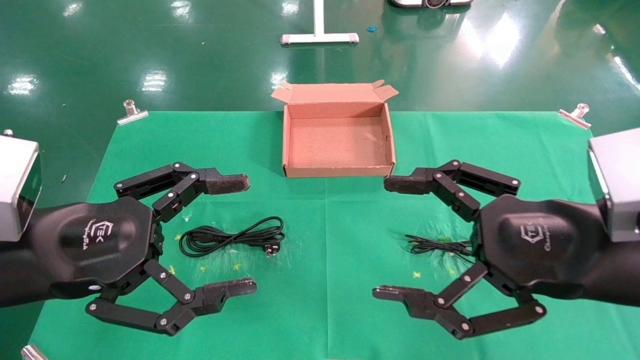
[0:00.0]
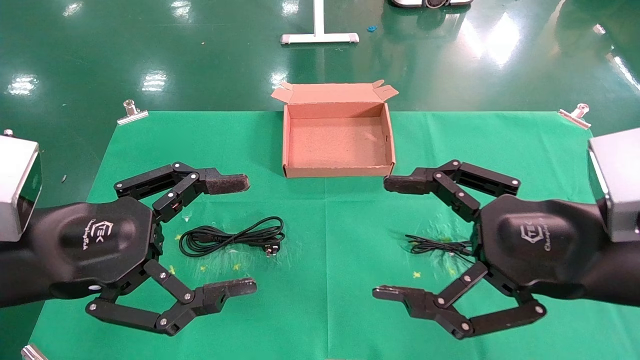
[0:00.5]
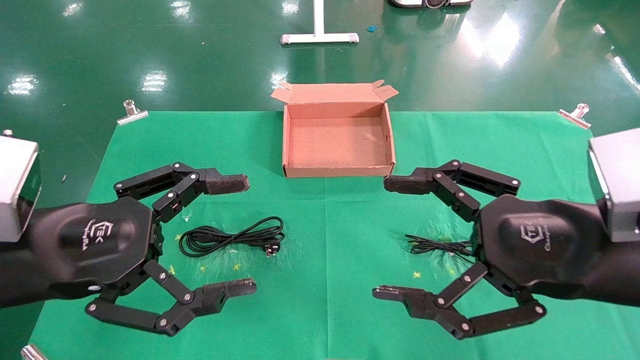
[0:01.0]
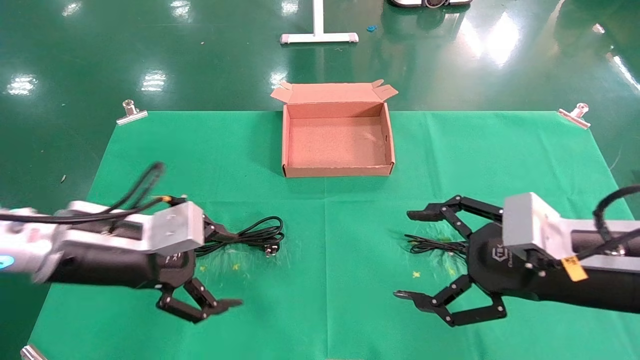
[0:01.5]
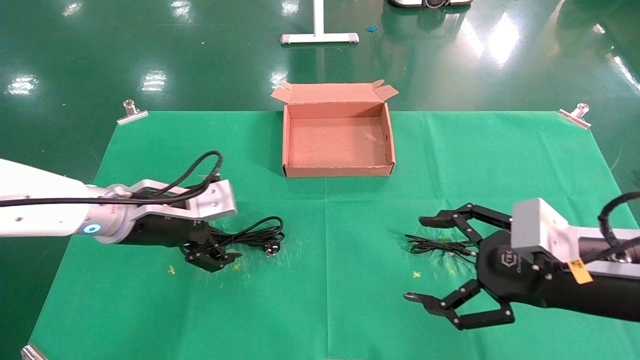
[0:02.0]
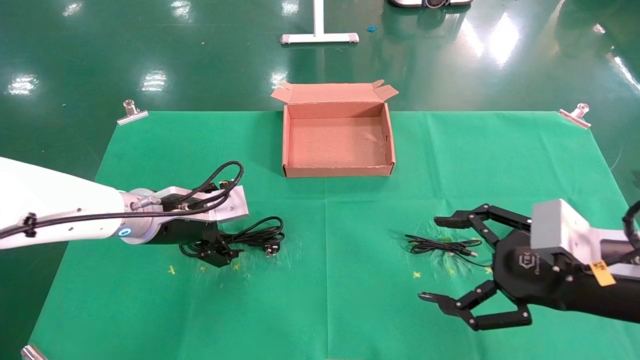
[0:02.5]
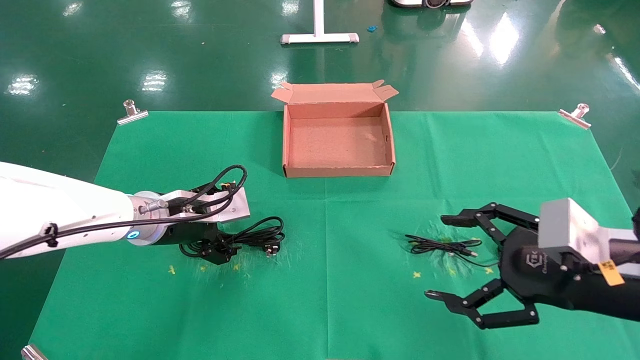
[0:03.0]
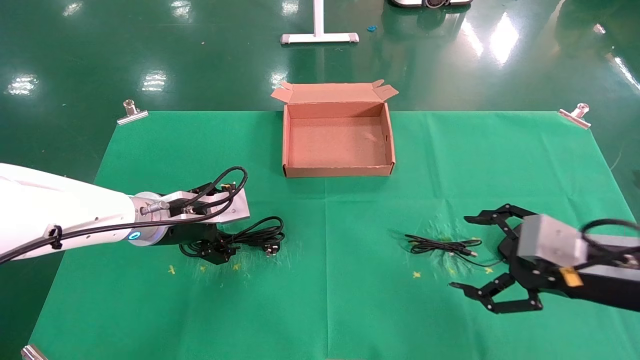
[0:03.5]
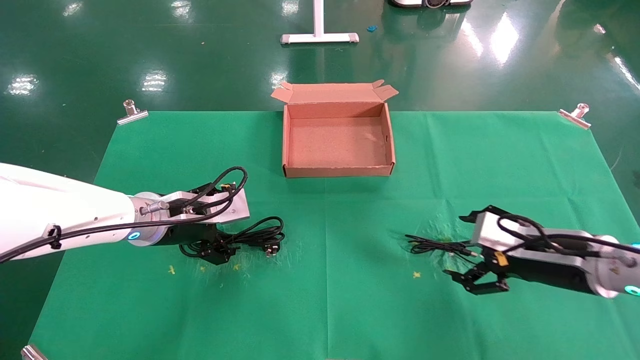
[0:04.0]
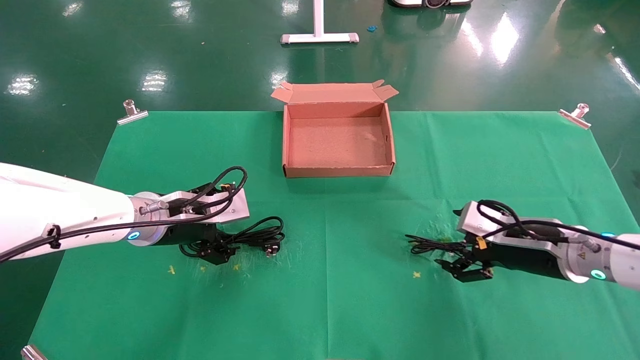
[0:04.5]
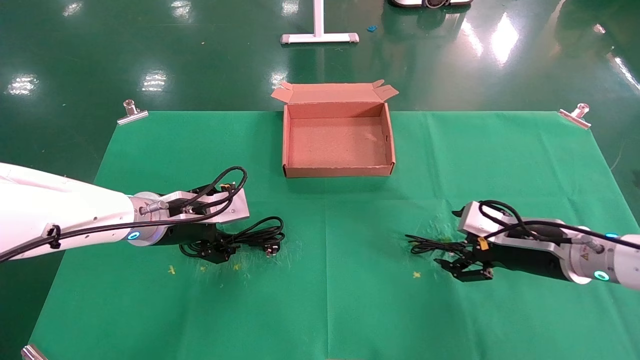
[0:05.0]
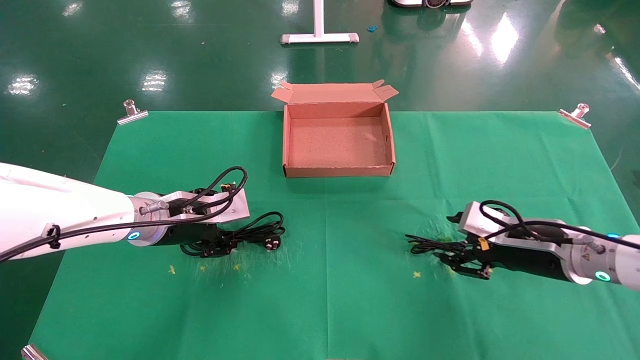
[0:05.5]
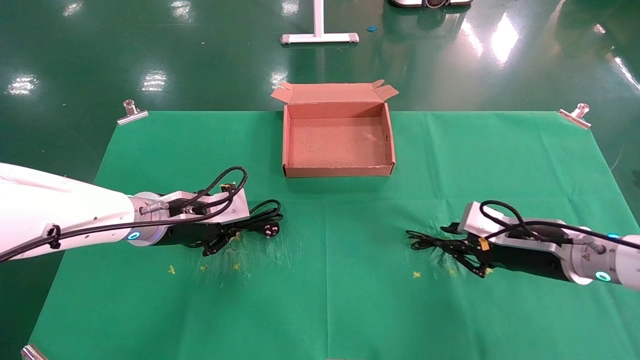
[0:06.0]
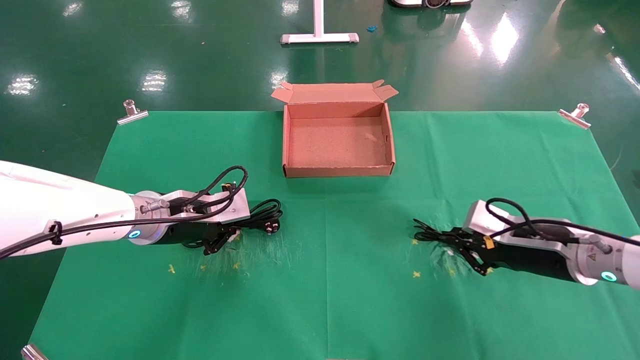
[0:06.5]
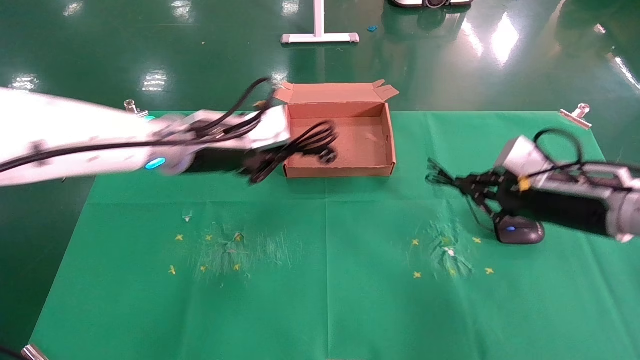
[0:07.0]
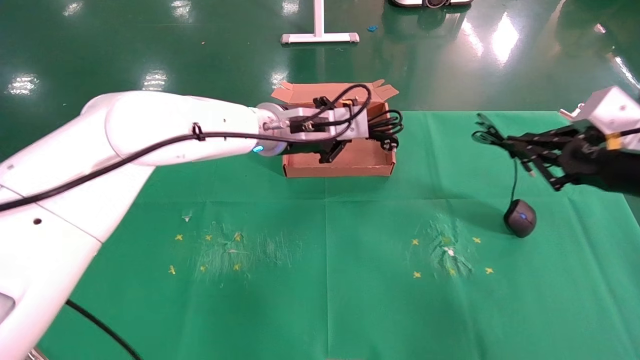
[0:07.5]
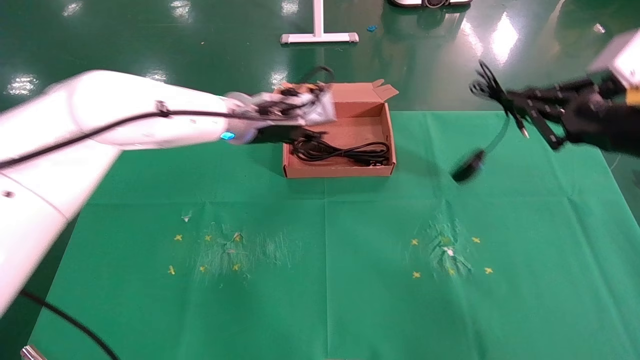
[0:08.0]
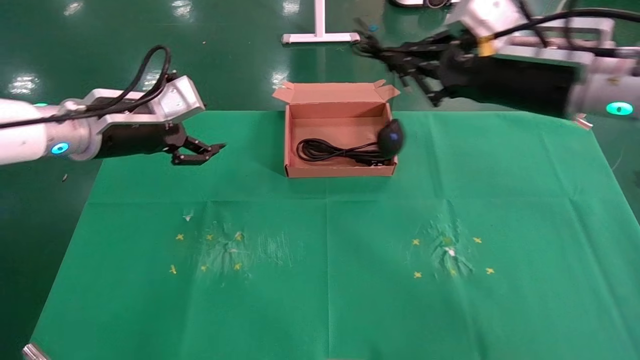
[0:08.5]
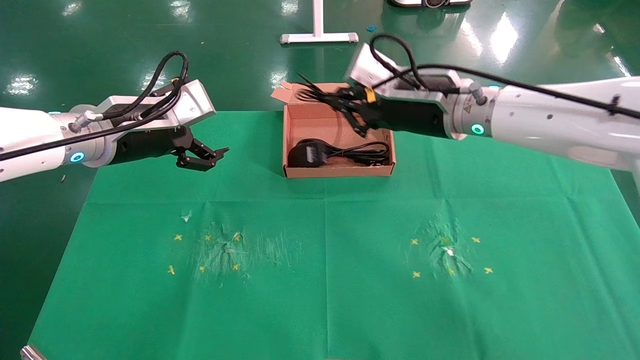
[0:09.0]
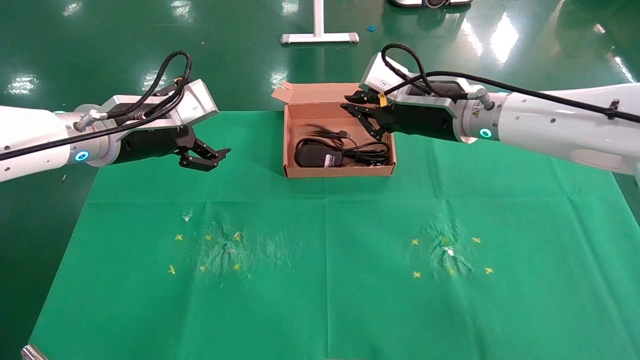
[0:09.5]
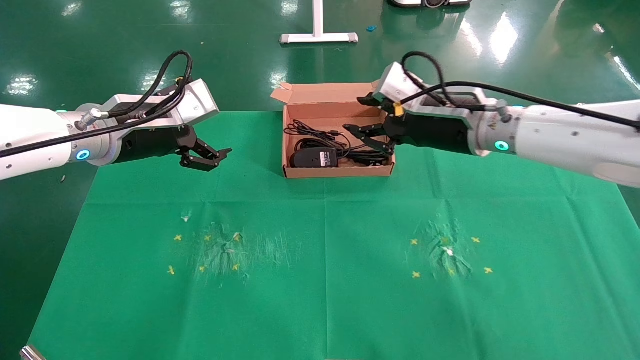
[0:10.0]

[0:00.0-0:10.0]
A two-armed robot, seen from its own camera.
Task of the whole recording: grasp data cable left put into box grasp mouse right put into box.
Step, 0:01.0 to 0:06.0: Simultaneously pick up the mouse and power cord from the accessory packaging area.
Step, 0:06.5 to 0:09.0: Place the mouse and power cord into the box.
0:00.0 to 0:02.0: The left gripper heads forward, covering roughly 15 cm. Meanwhile the right gripper heads downward, covering roughly 5 cm.
0:02.0 to 0:04.0: The right gripper moves forward and downward, approximately 10 cm.
0:04.0 to 0:06.0: The left gripper closes its fingers. The right gripper closes up.
0:06.0 to 0:08.0: The left gripper goes some 15 cm upward, to the right and forward; the right gripper is displaced upward by approximately 15 cm.
0:08.0 to 0:10.0: The right gripper heads to the left and forward, covering about 20 cm; the left gripper heads to the left and backward, covering some 15 cm, and opens up.

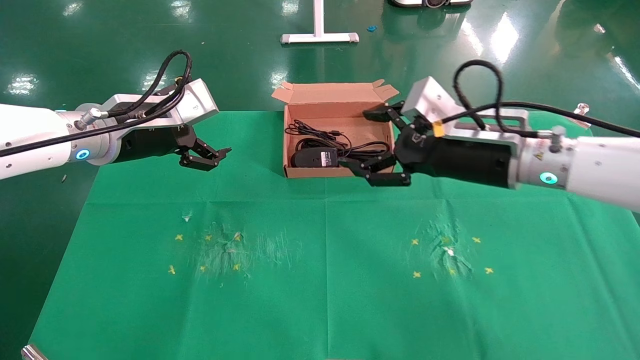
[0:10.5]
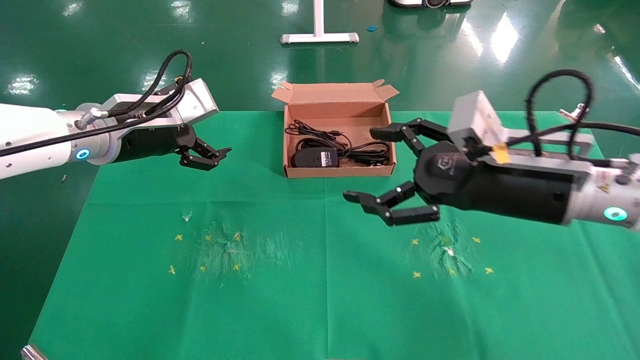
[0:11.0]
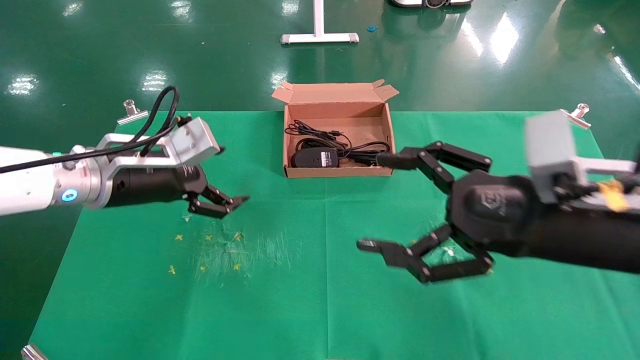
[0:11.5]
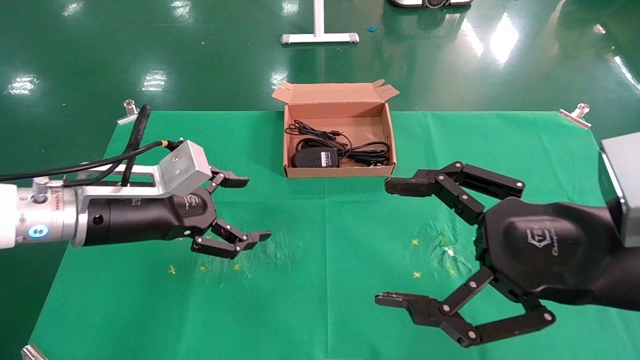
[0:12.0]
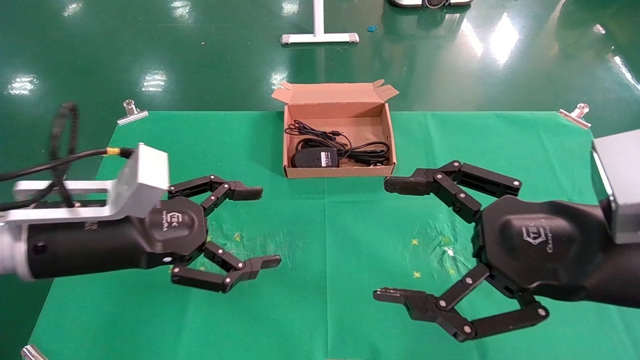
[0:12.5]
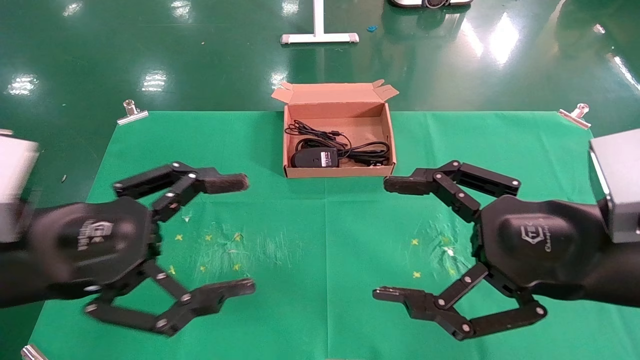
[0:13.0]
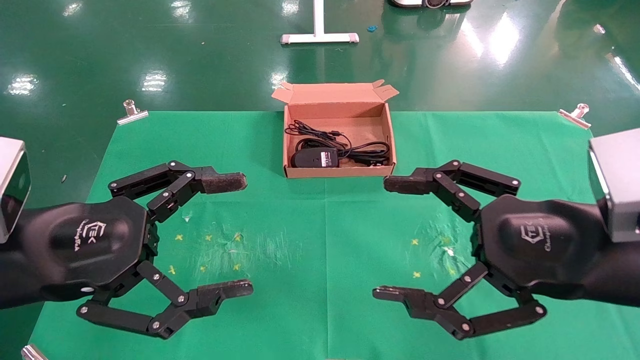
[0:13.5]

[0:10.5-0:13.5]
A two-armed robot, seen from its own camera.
Task of the whole recording: grasp data cable left put into box grasp mouse right put into box.
0:10.5 to 0:12.0: The left gripper is displaced backward and downward by about 10 cm, while the right gripper shifts some 15 cm backward.
0:12.0 to 0:13.5: The left gripper moves backward, roughly 10 cm.
